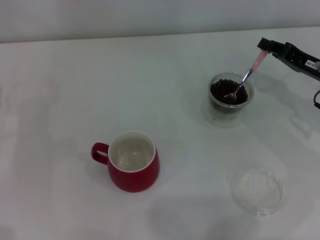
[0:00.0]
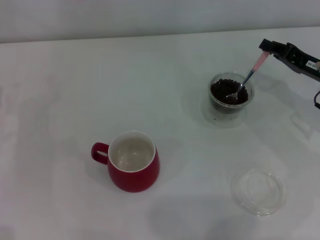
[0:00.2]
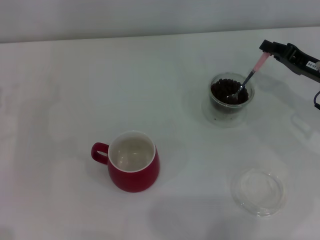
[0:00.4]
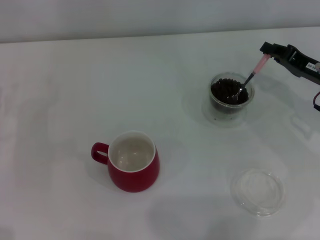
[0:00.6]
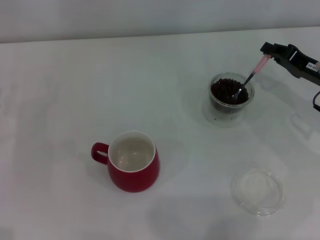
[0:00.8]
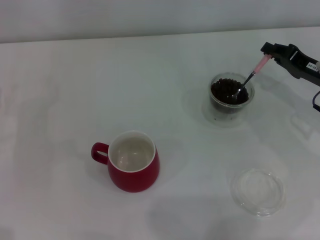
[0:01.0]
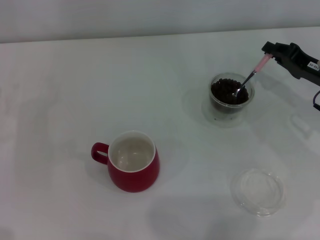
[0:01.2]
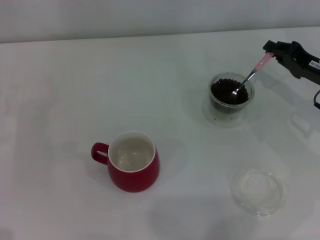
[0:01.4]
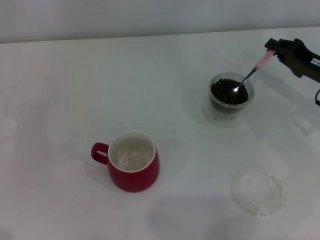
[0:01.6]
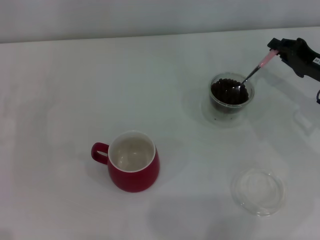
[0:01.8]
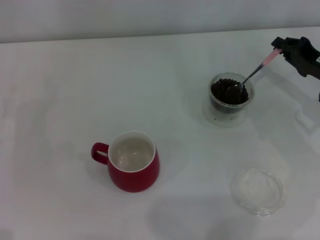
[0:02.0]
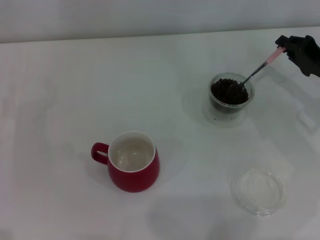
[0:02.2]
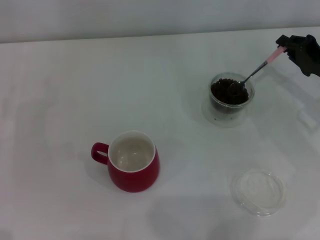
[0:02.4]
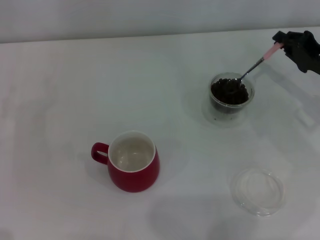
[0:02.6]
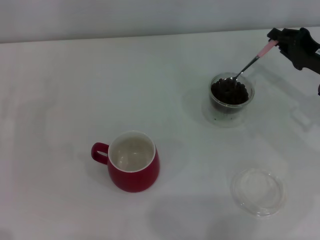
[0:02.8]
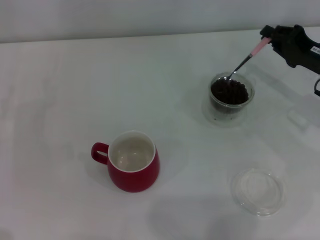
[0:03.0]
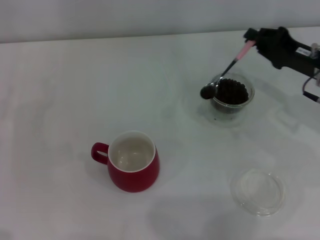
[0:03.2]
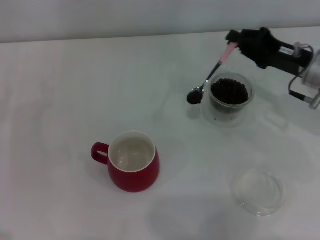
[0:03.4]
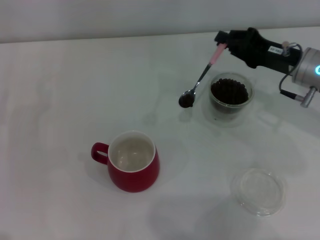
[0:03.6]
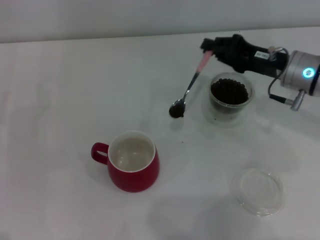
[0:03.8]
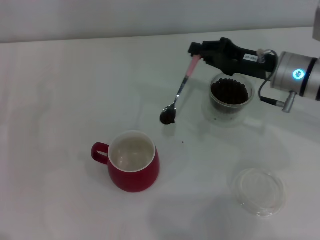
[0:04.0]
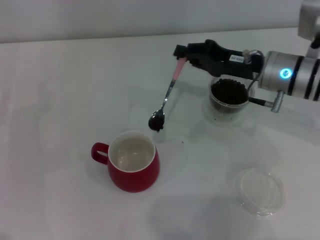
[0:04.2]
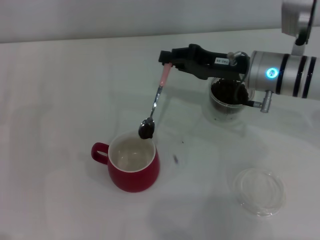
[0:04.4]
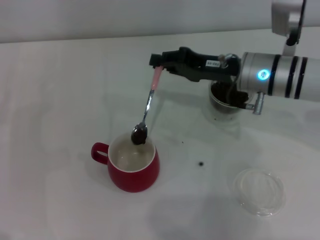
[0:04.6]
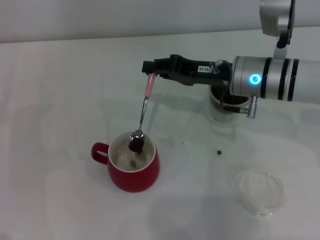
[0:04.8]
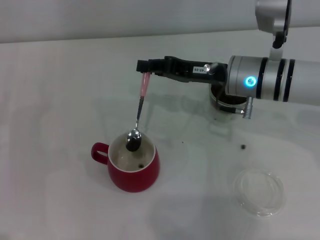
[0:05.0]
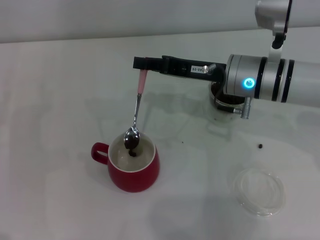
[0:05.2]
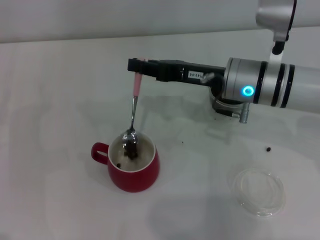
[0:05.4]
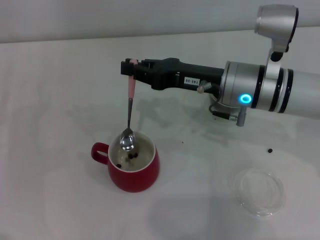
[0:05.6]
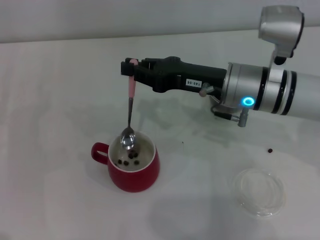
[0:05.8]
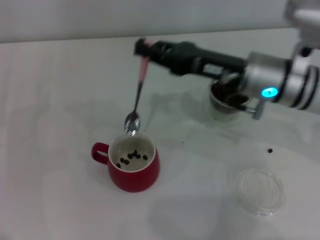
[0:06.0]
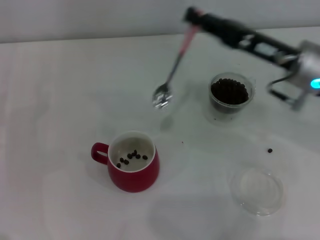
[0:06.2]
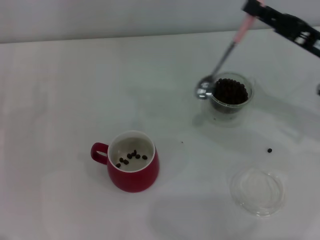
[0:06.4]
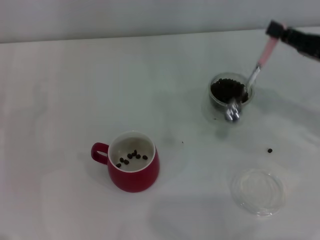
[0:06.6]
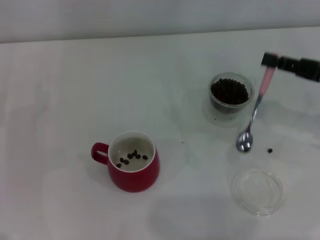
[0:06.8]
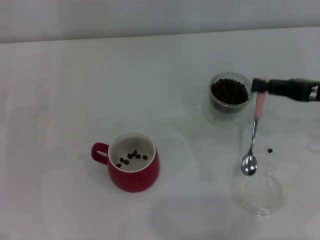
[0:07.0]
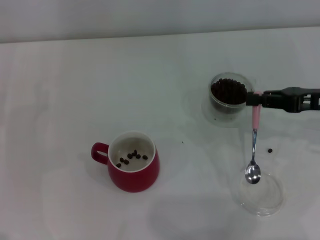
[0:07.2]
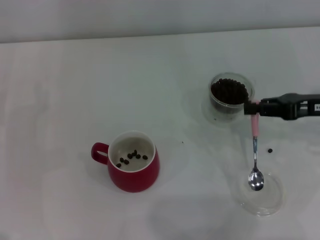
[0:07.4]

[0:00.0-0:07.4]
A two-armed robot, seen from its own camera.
Task of the whole recording: Use a pink spoon to take out the coffee beans from the glass and pour them into the red cup.
Step, 0:00.0 to 0:05.8: Scoop a spoonful of beans into the cup with the right gripper.
0:00.0 to 0:01.4: The grippers make only small movements.
0:01.4 to 0:03.0: There are only small adjustments of the grippers.
0:03.0 to 0:04.4: The right gripper shifts approximately 10 cm to the left.
0:06.0 to 0:07.4: The right gripper is displaced to the right by about 15 cm.
